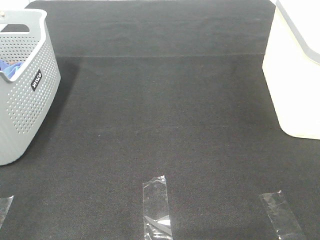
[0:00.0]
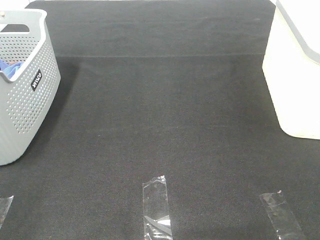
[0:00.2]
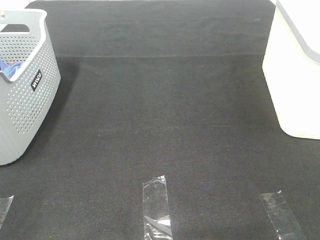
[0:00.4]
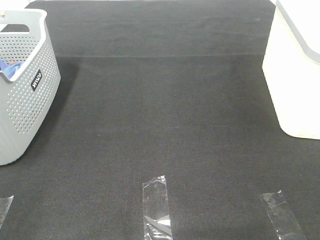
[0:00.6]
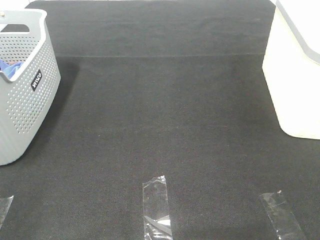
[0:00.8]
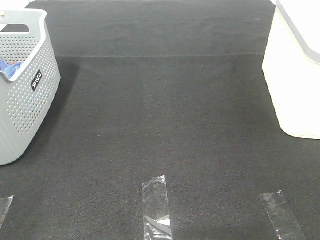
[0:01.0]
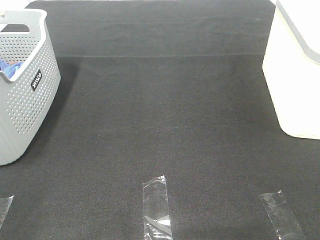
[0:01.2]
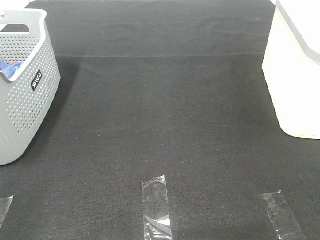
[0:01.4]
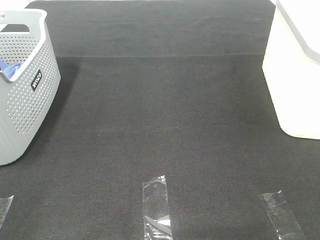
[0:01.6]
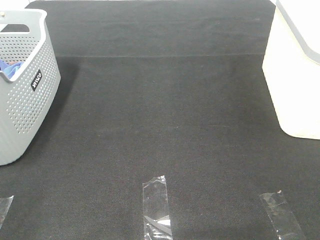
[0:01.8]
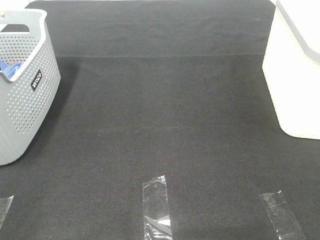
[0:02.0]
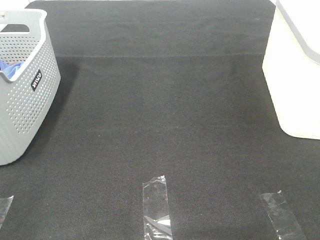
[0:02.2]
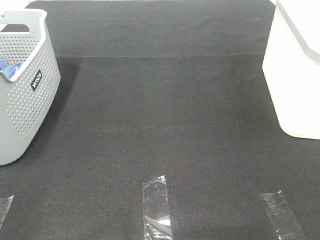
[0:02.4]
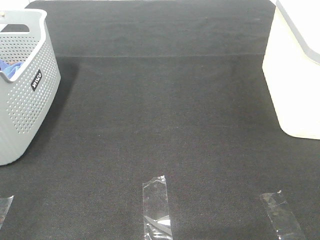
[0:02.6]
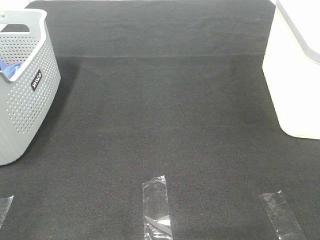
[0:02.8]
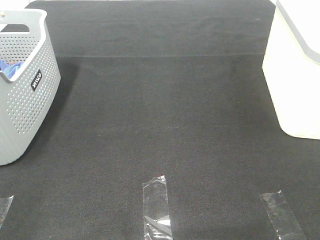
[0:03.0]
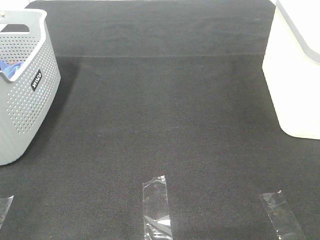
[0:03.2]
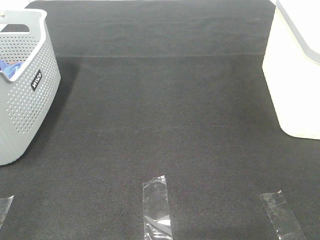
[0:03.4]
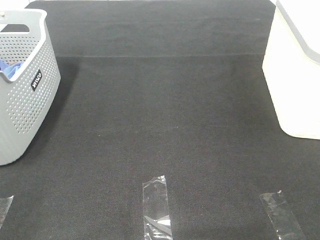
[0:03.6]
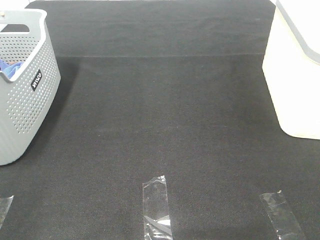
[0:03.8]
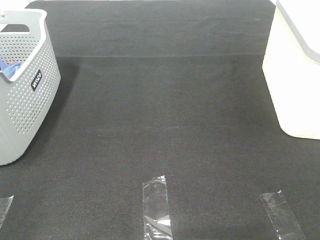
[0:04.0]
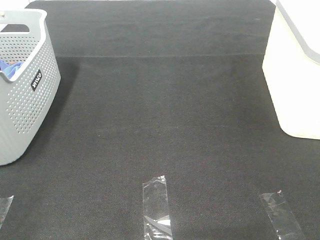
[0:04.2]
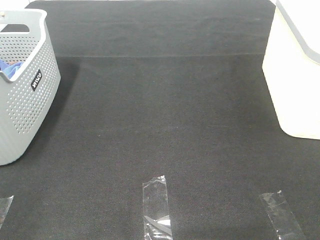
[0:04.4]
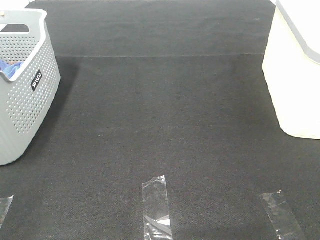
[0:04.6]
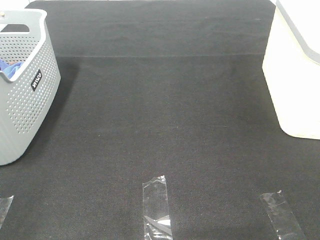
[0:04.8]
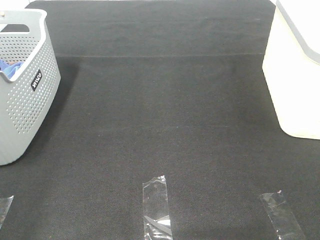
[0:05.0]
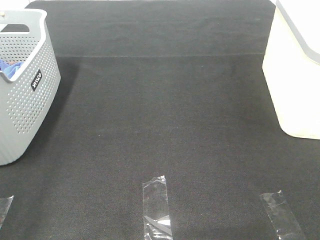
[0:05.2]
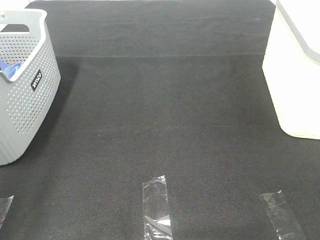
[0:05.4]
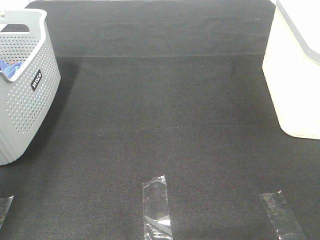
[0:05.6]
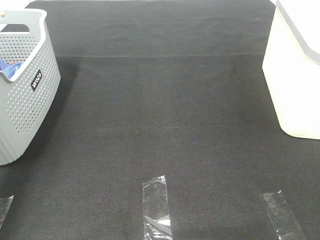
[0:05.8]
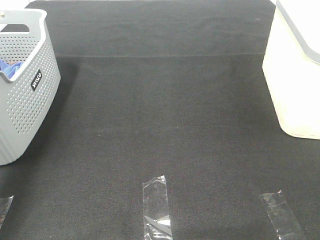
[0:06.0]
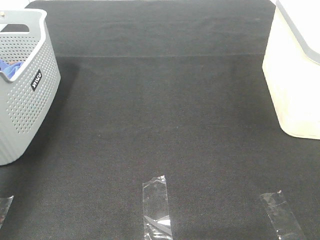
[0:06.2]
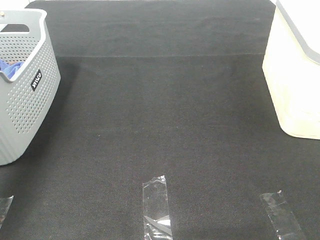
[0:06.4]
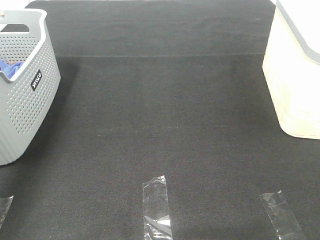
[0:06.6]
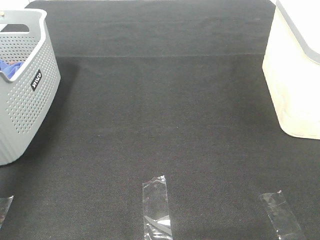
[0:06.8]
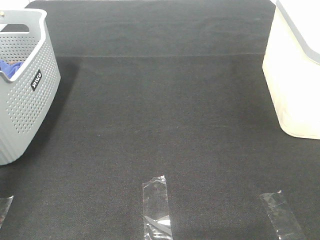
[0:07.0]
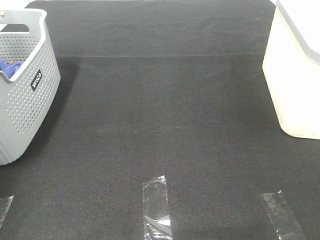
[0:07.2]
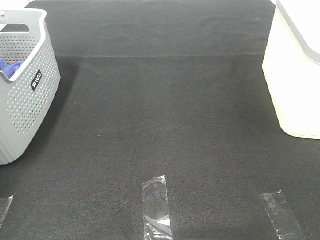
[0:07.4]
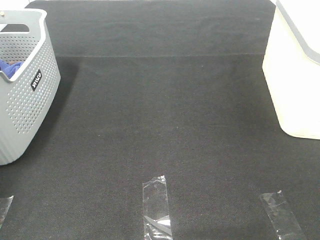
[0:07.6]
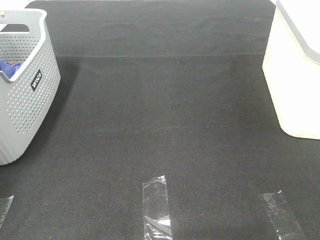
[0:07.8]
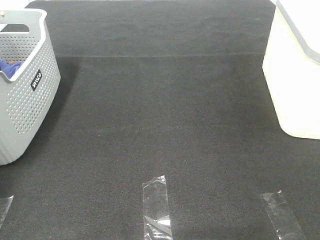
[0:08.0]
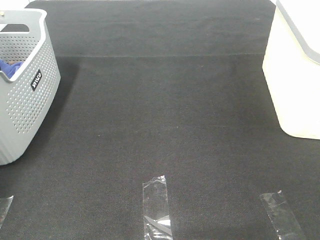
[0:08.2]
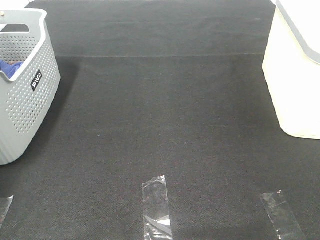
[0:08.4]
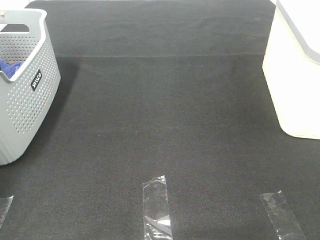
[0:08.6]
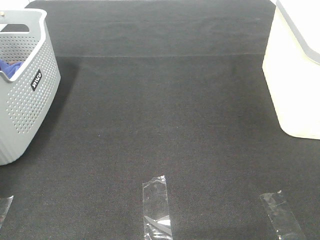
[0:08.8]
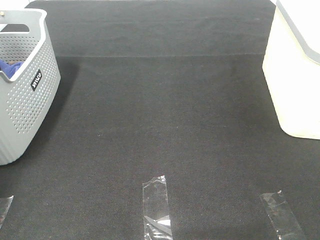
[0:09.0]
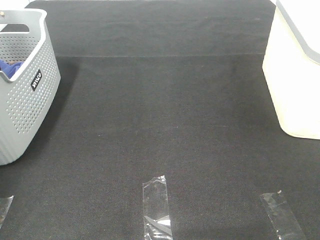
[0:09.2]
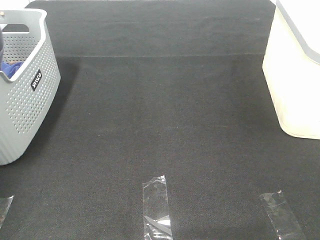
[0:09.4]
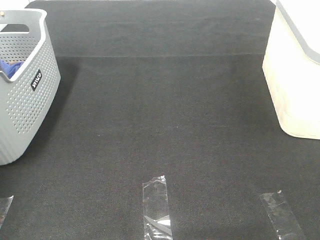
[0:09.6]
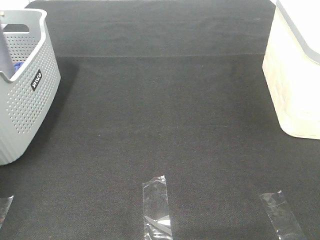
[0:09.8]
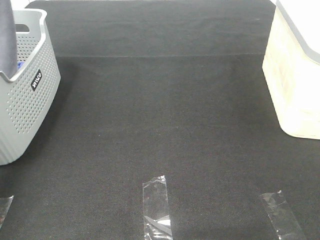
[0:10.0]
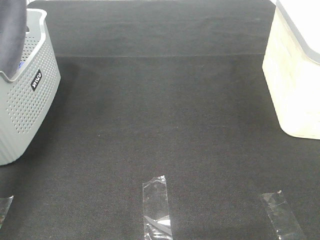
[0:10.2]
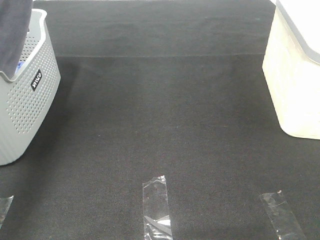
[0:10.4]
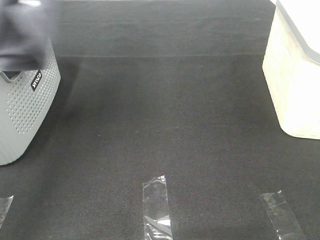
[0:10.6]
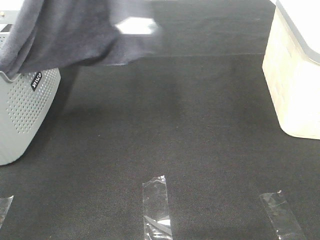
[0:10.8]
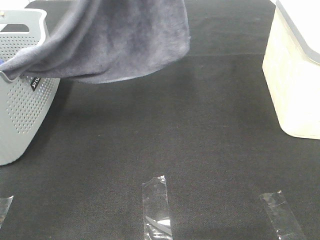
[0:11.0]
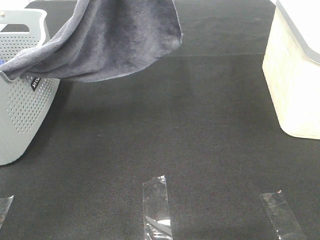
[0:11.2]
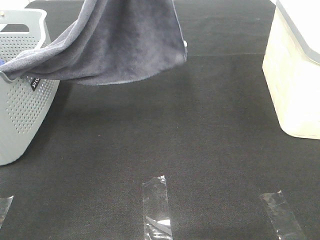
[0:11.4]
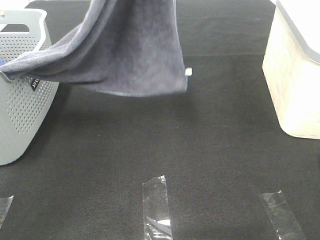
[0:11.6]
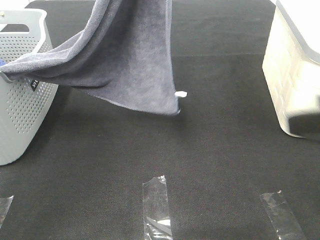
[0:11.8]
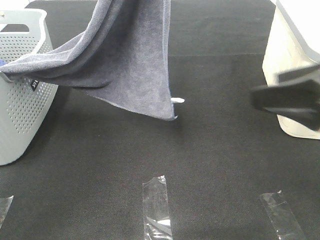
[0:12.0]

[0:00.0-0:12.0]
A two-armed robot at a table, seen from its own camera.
Task of the whole recording: Remove the towel and place it.
0:00.0 to 0:04.4: Neither gripper changes place.
0:04.4 to 0:06.0: The left gripper is displaced forward by roughly 30 cm.
0:06.0 to 0:07.6: The left gripper moves forward and to the left, approximately 20 cm.
0:09.0 to 0:10.4: The left gripper goes roughly 30 cm upward, to the right and backward.
0:10.4 to 0:12.0: The left gripper is displaced to the right by about 15 cm. The right gripper heads forward, covering approximately 20 cm.

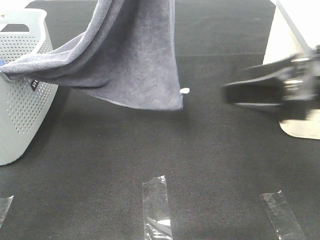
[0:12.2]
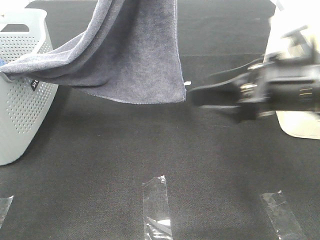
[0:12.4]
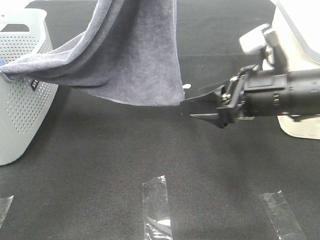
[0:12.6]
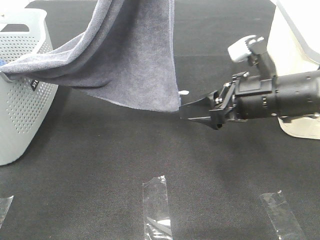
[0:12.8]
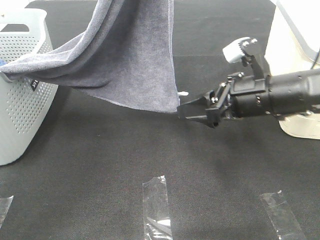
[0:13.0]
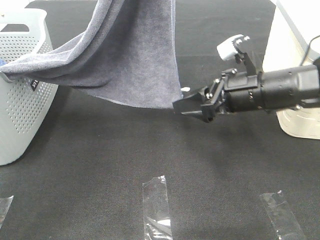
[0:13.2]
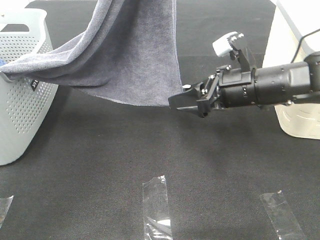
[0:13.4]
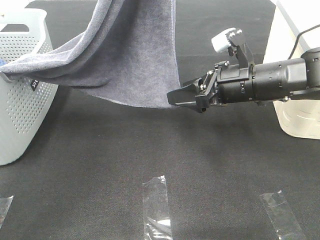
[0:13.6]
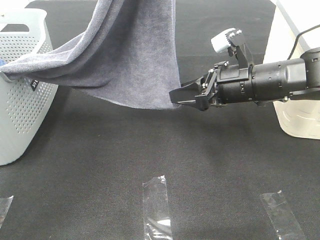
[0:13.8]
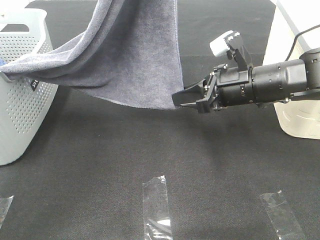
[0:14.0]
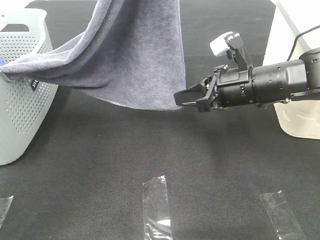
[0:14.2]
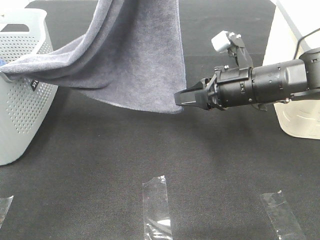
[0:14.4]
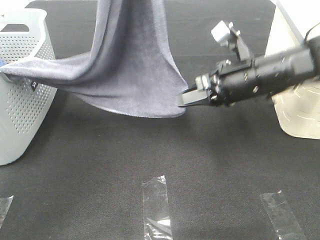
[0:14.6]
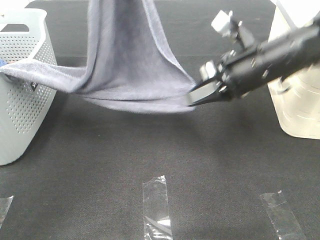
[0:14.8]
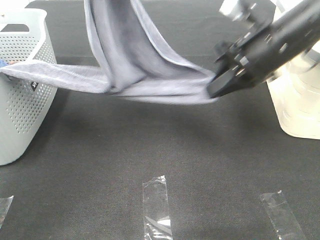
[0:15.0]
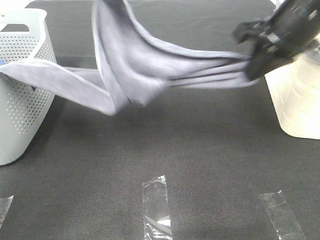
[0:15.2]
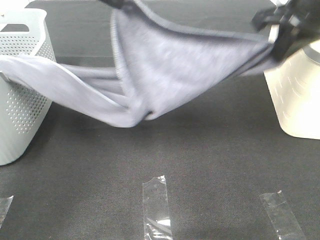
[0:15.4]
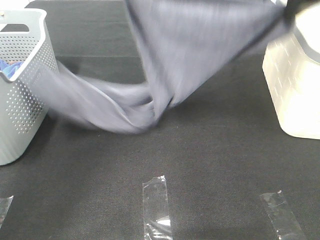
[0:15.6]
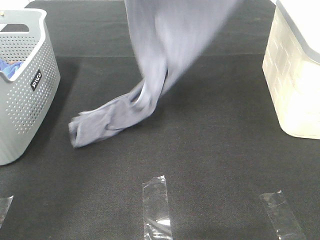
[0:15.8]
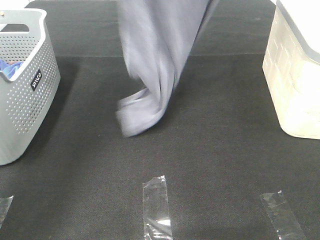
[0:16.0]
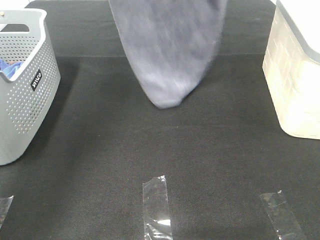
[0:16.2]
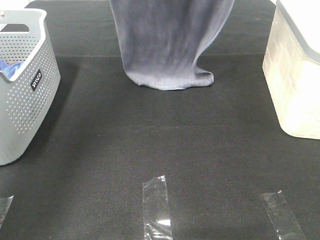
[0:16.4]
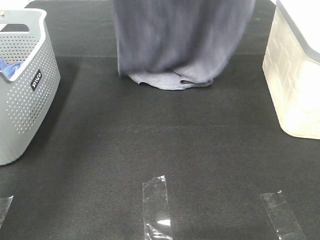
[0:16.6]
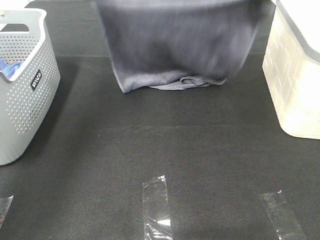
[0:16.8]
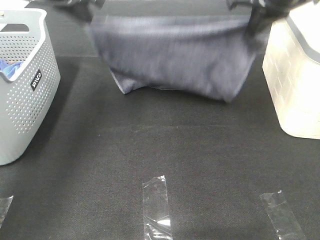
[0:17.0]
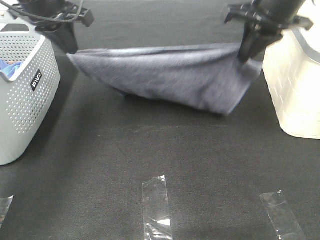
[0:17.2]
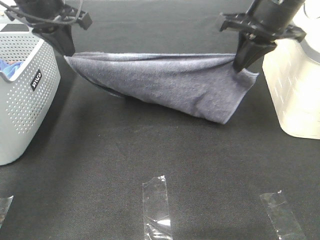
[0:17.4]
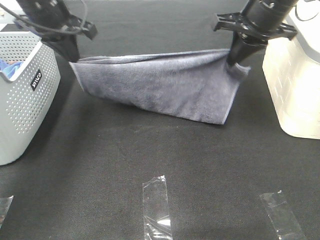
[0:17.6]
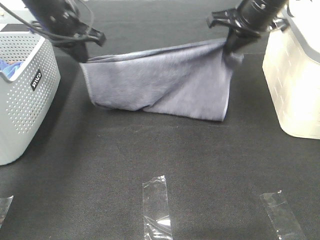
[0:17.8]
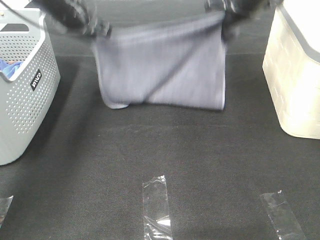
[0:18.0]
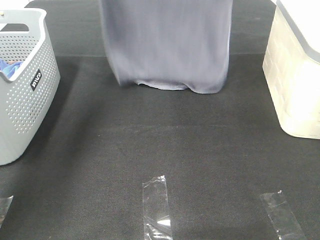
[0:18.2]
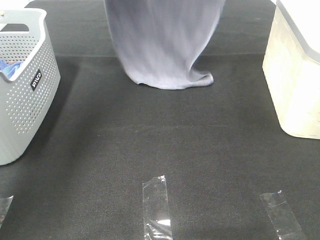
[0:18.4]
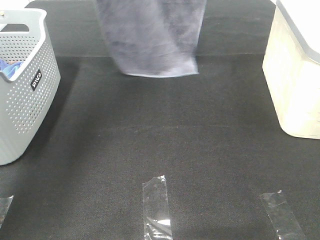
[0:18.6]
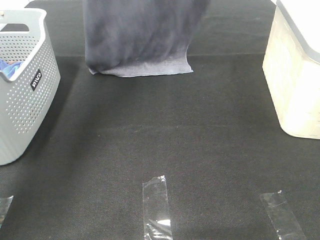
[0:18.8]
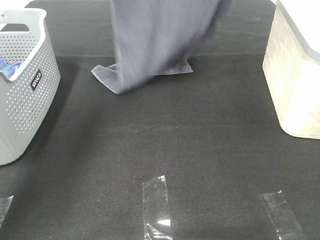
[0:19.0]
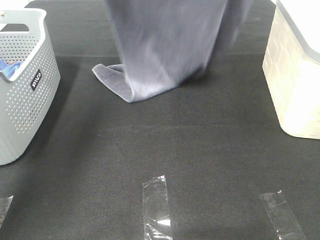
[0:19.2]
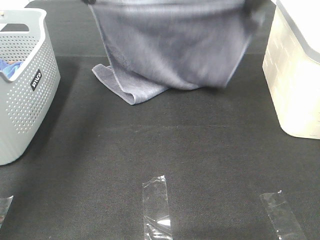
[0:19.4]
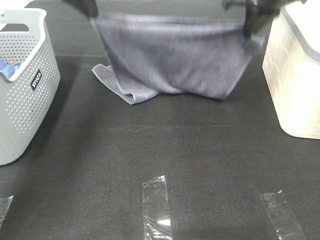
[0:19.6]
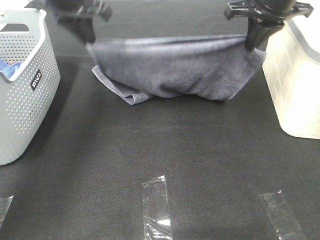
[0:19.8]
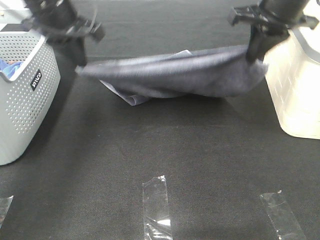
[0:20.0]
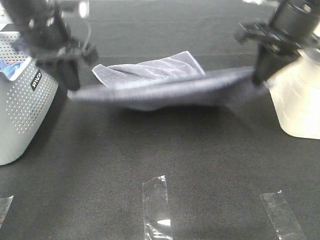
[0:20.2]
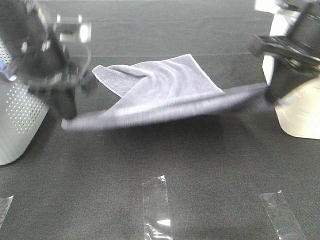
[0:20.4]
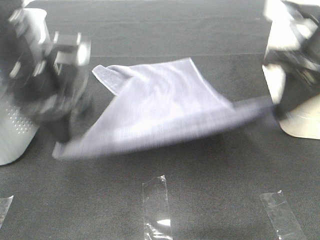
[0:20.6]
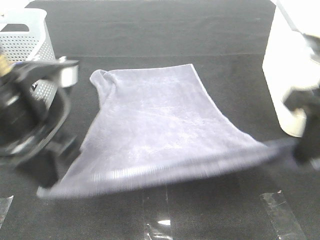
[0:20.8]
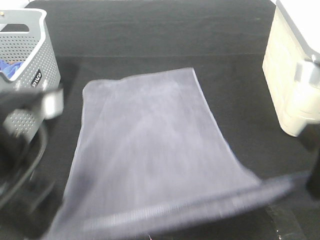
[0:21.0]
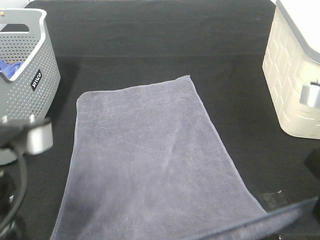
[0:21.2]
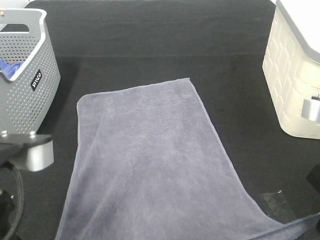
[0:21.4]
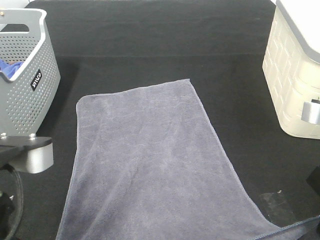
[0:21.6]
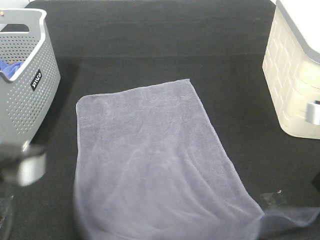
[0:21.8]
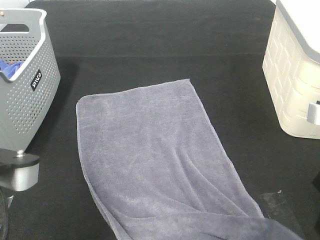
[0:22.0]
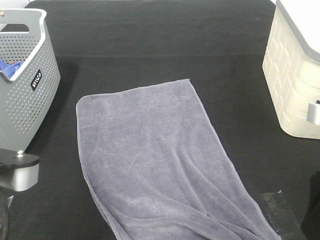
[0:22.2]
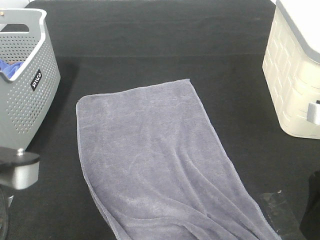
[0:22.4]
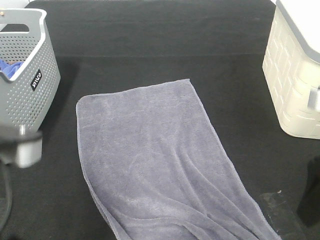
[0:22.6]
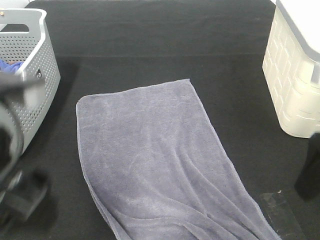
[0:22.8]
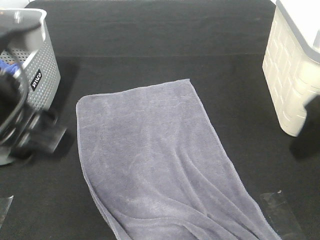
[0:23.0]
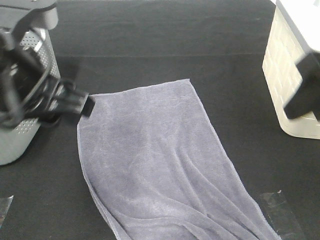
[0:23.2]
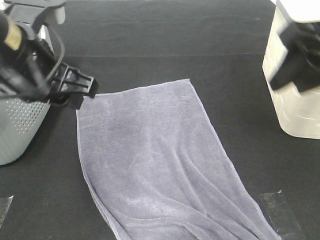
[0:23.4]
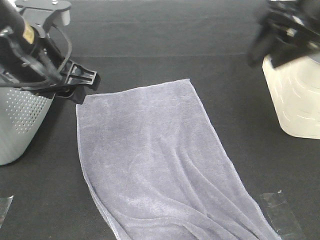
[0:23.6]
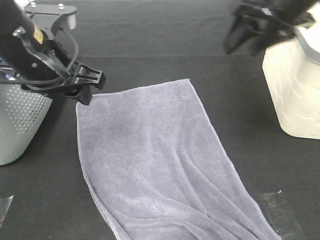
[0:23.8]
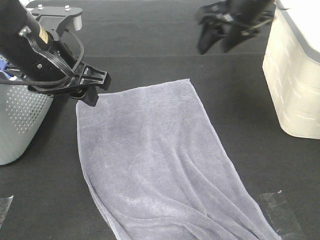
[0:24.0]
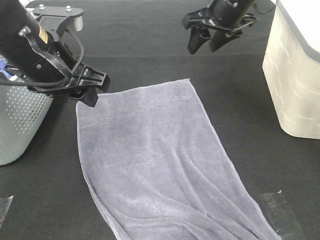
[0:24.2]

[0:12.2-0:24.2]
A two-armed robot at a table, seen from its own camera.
Task of the whole recording: Remove the towel and place it.
Step, 0:13.4 to 0:17.4: Left hand: spread the grey towel flat on the table.
Step, 0:13.4 to 0:17.6: Right hand: spread the grey towel flat on the table.
0:12.2 to 0:13.8: The right gripper heads forward, downward and to the left, covering some 15 cm.
0:13.8 to 0:15.2: The right gripper goes about 15 cm upward, and closes its fingers; the left gripper goes about 5 cm downward.
0:15.2 to 0:16.6: The left gripper heads forward, covering roughly 10 cm, and moves some 10 cm upward and comes back; the right gripper is displaced upward and forward by roughly 15 cm.
0:16.6 to 0:18.2: The right gripper travels forward by roughly 10 cm, and moves approximately 15 cm downward and comes back, while the left gripper heads forward, covering some 5 cm, and goes downward and returns, roughly 15 cm each way.
0:18.2 to 0:19.8: Both grippers move downward and backward, roughly 10 cm.
0:19.8 to 0:21.2: Both grippers travel together backward, some 30 cm.
0:21.2 to 0:22.6: The right gripper opens its fingers, while the left gripper opens up.
0:22.6 to 0:24.2: The right gripper is displaced forward by some 30 cm; the left gripper goes some 20 cm forward.
